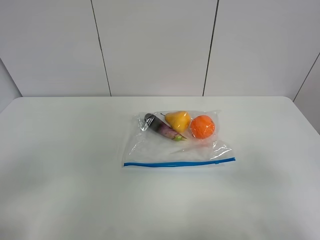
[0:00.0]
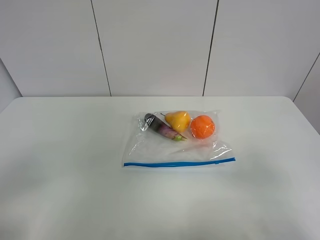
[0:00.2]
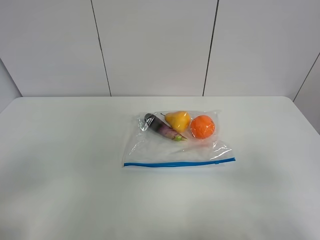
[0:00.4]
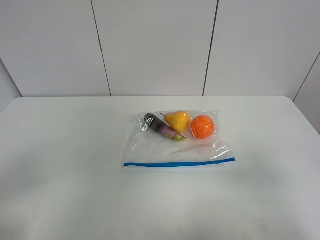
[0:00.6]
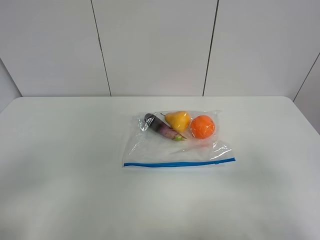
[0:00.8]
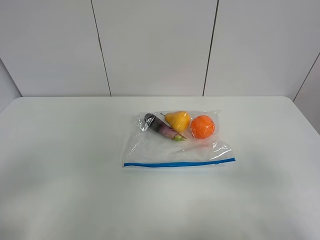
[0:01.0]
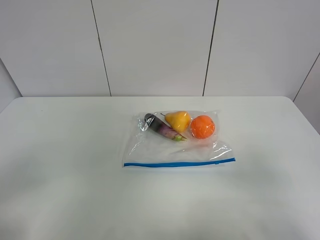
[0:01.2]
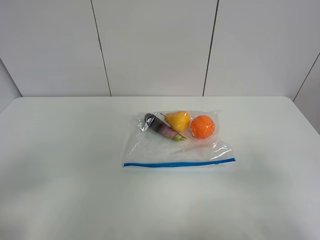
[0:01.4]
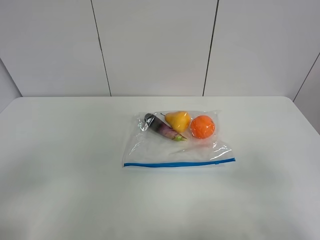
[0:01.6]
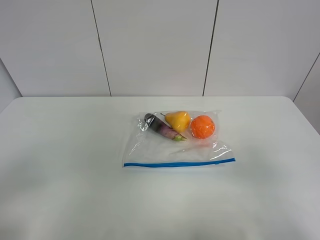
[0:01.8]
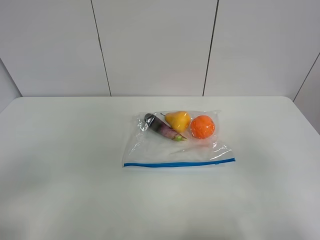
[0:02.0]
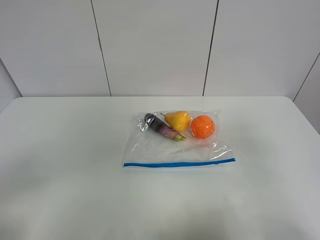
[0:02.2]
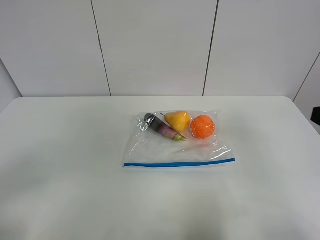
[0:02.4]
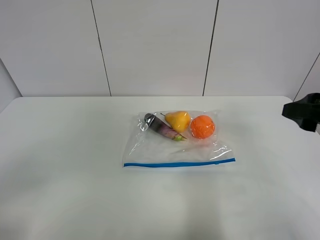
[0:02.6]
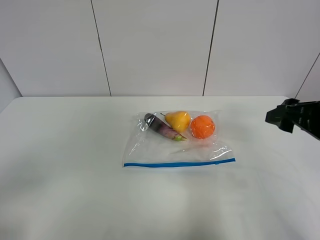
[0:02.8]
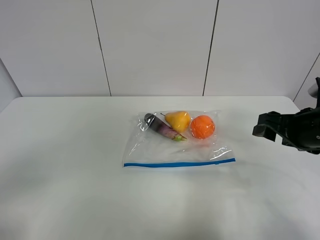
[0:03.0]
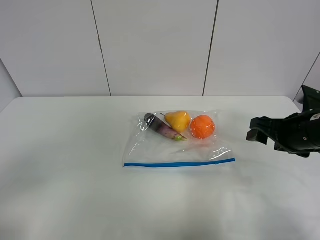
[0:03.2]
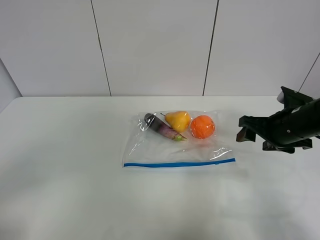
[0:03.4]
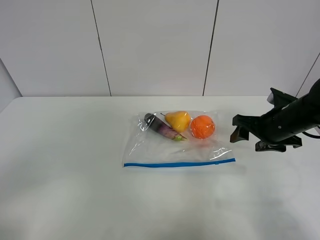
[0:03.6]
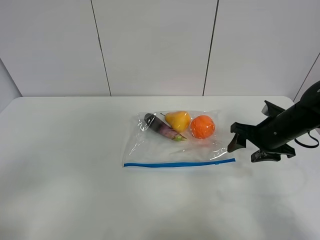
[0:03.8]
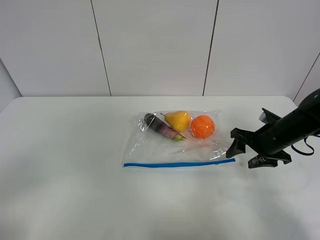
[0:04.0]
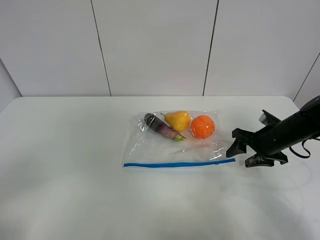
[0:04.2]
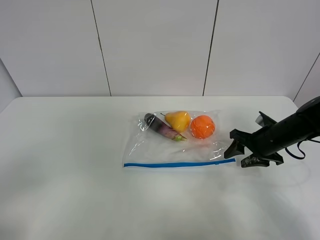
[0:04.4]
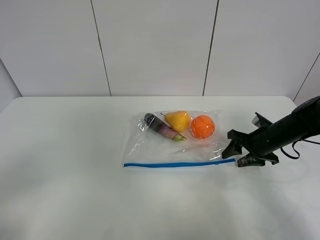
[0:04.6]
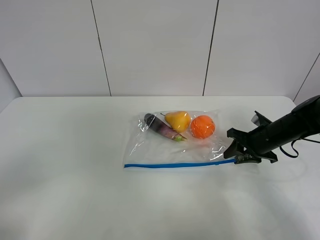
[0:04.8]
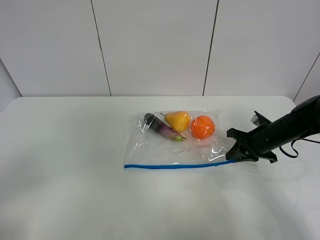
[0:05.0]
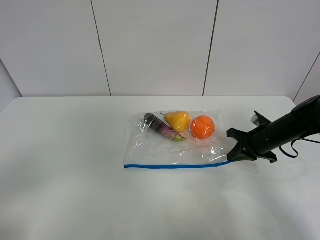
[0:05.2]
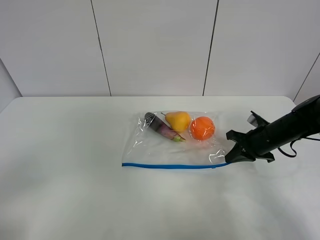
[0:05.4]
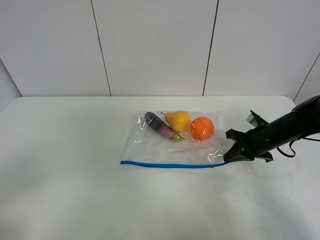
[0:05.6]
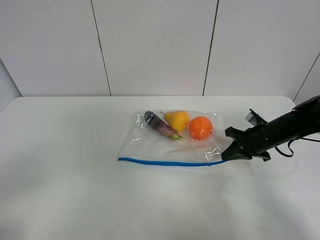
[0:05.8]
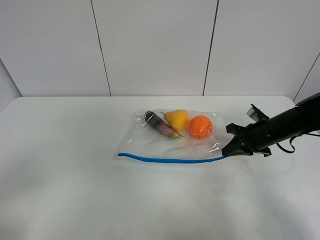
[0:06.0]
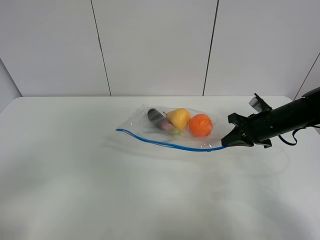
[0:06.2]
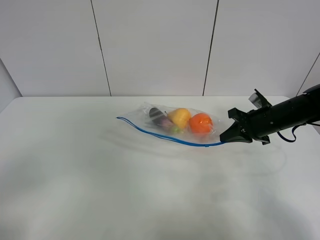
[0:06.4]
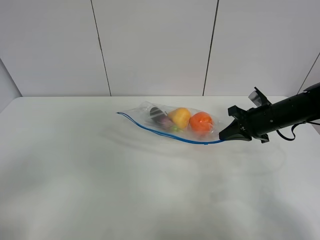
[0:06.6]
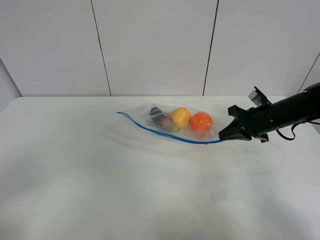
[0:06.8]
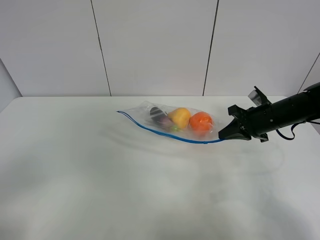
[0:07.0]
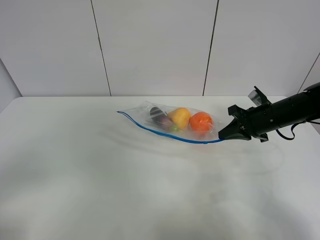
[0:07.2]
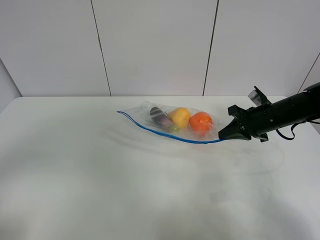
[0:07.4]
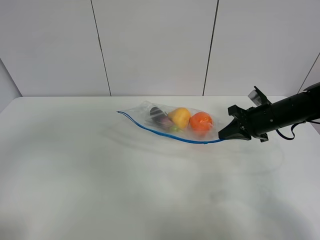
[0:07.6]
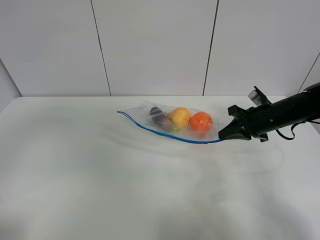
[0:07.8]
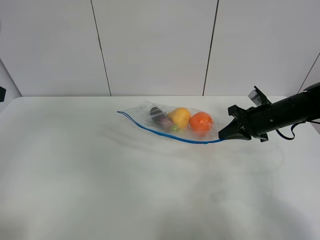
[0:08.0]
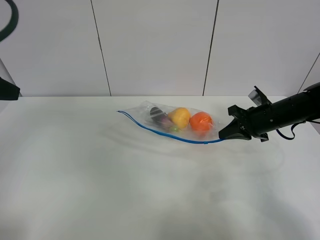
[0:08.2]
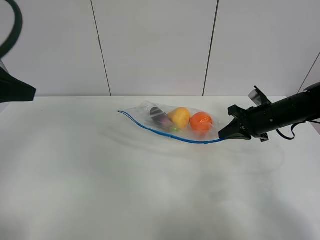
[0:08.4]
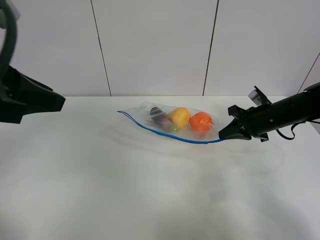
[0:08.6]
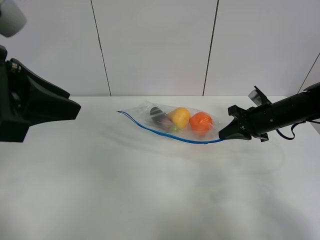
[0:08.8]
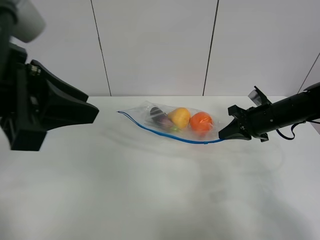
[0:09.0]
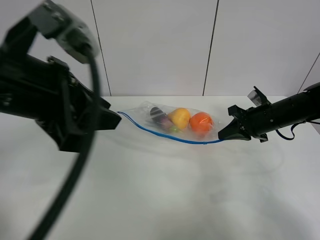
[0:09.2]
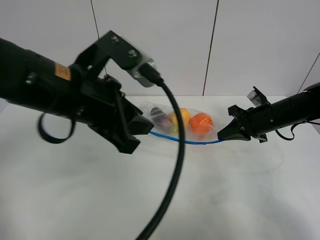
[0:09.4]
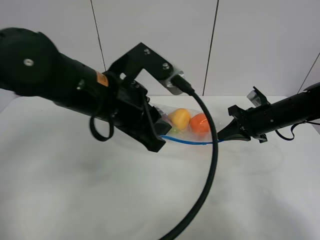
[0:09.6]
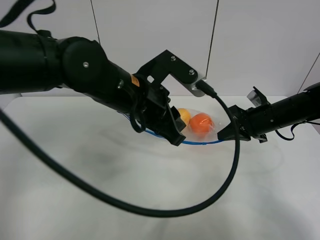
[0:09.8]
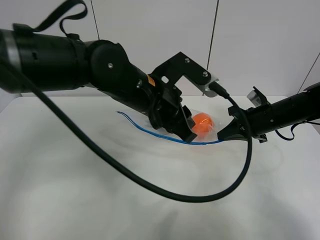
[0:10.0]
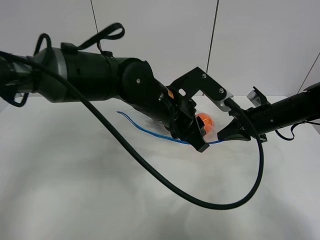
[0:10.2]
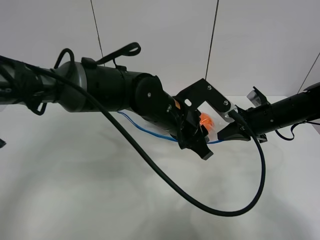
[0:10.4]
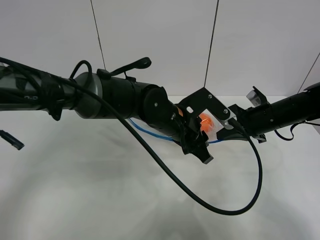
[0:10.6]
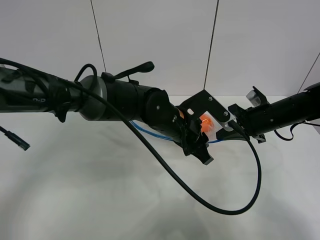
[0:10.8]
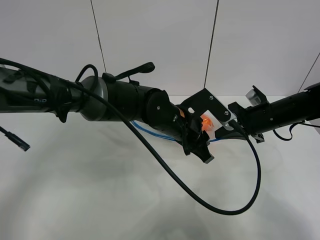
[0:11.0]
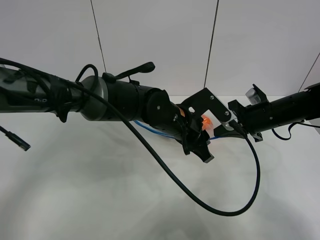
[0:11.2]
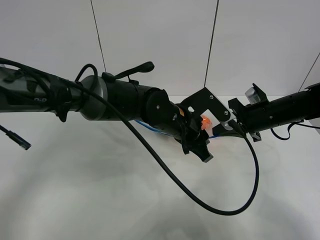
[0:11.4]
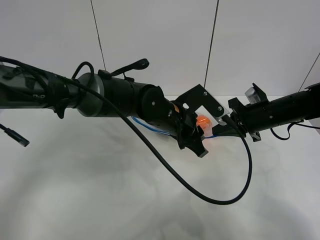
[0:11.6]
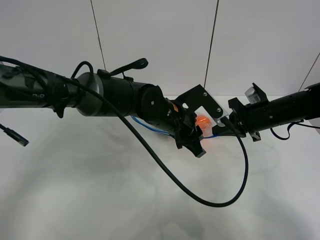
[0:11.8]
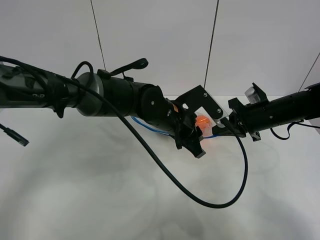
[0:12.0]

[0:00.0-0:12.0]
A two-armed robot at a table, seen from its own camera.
Step, 0:00.0 to 0:05.2: Grasp the fruit bag with right gripper.
Step, 0:05.4 to 0:06.8: Lift the fruit bag with your right gripper.
0:00.0 to 0:01.6: Neither gripper changes place.
0:01.6 to 0:03.0: The right gripper travels forward by roughly 25 cm.
0:03.0 to 0:04.4: The right gripper moves downward and forward, roughly 15 cm.
0:04.4 to 0:06.0: The right gripper closes its fingers.
0:06.0 to 0:07.6: The left gripper heads forward and upward, covering about 10 cm.
0:07.6 to 0:09.0: The left gripper travels to the right and forward by some 15 cm.
0:09.0 to 0:10.4: The left gripper moves to the right, downward and forward, about 30 cm.
0:10.4 to 0:12.0: The grippers make only small movements.

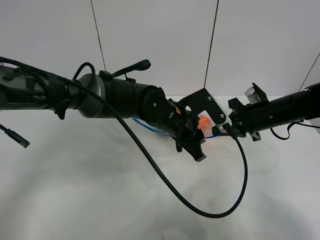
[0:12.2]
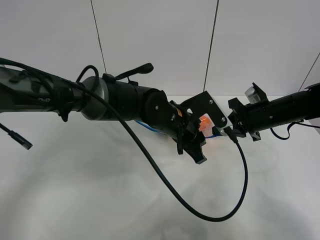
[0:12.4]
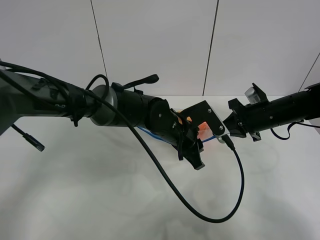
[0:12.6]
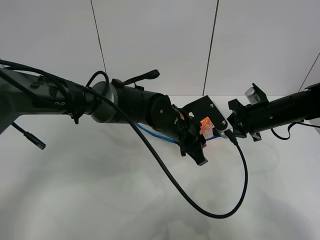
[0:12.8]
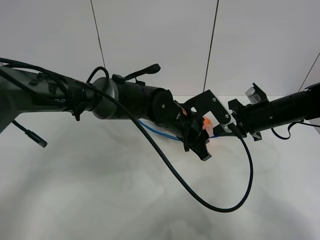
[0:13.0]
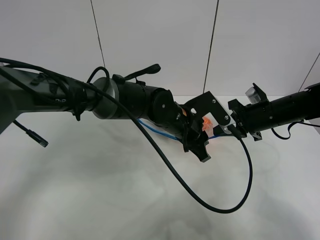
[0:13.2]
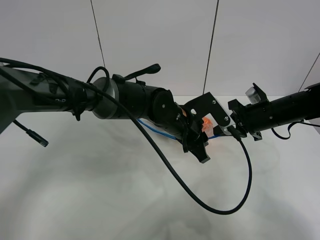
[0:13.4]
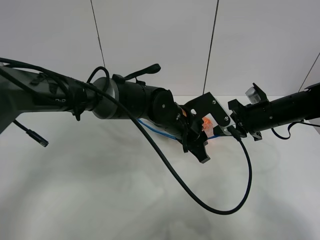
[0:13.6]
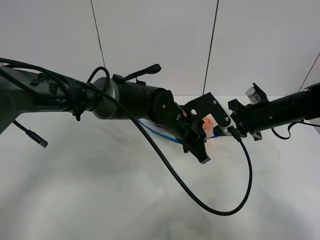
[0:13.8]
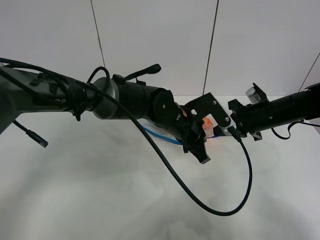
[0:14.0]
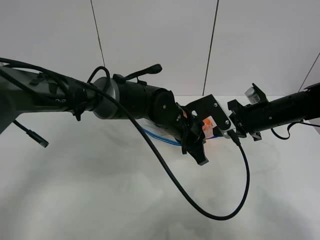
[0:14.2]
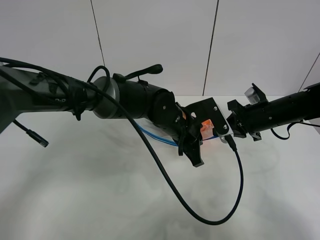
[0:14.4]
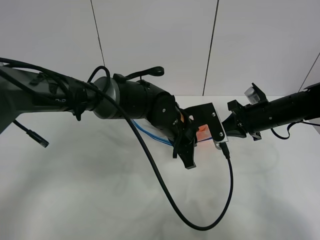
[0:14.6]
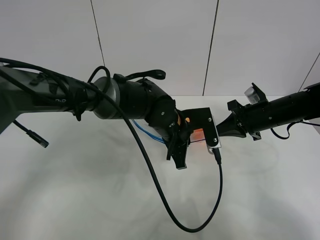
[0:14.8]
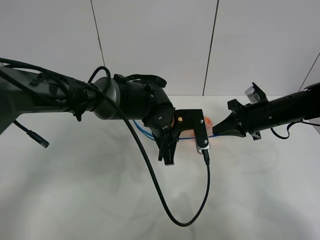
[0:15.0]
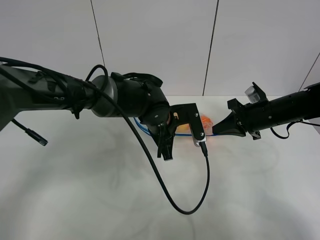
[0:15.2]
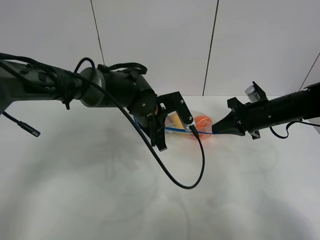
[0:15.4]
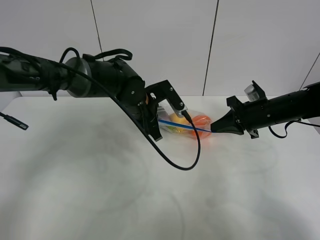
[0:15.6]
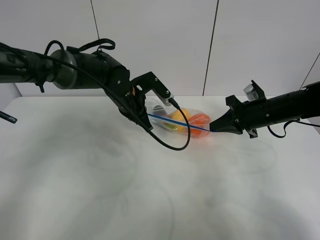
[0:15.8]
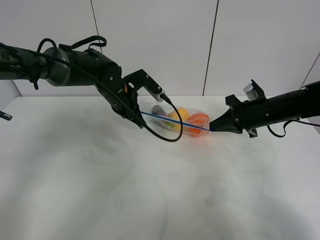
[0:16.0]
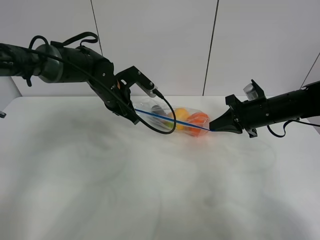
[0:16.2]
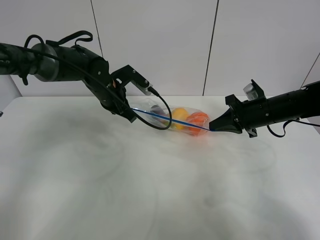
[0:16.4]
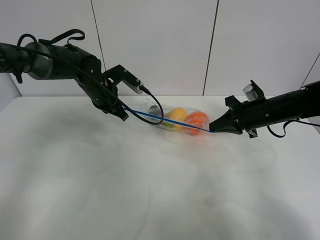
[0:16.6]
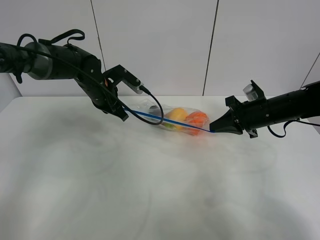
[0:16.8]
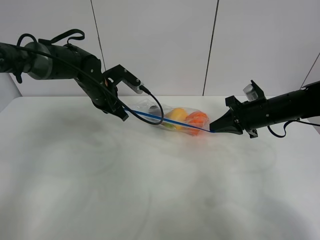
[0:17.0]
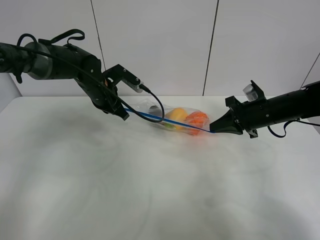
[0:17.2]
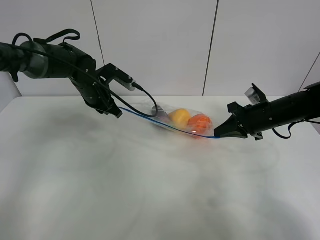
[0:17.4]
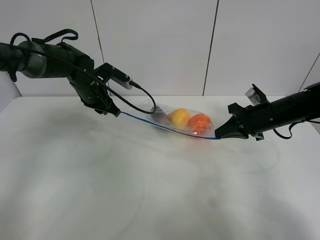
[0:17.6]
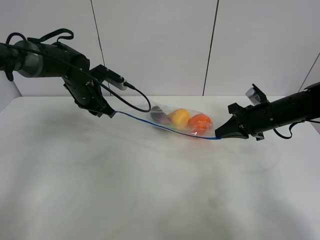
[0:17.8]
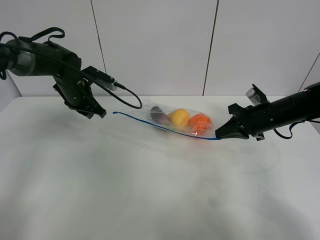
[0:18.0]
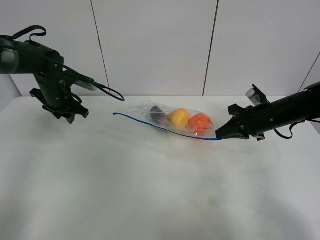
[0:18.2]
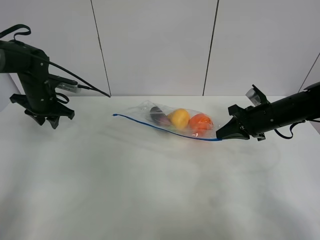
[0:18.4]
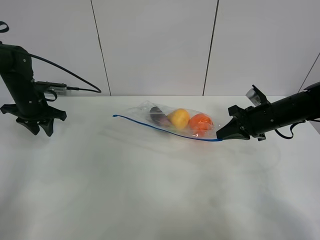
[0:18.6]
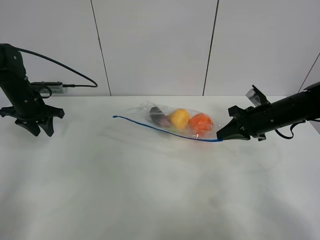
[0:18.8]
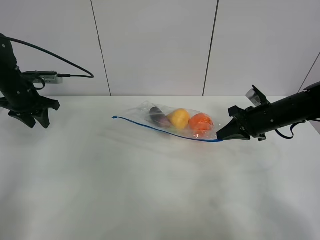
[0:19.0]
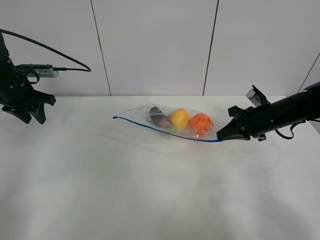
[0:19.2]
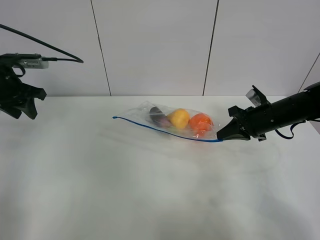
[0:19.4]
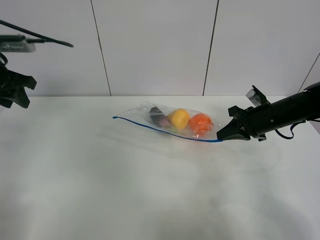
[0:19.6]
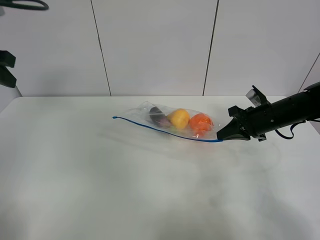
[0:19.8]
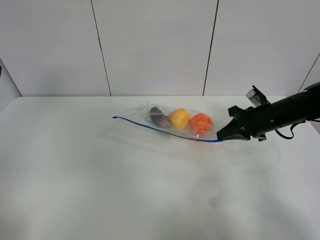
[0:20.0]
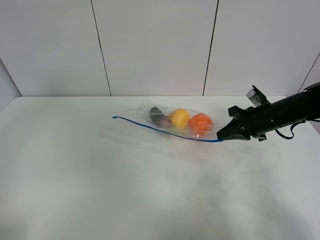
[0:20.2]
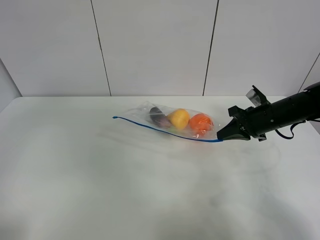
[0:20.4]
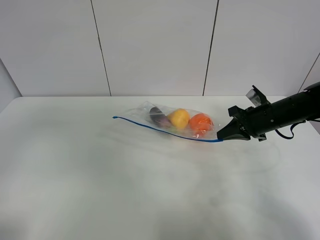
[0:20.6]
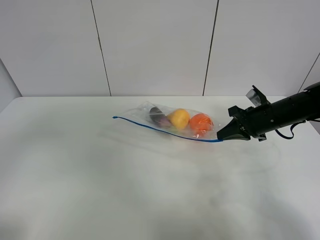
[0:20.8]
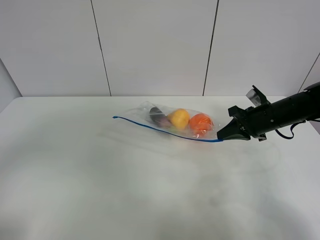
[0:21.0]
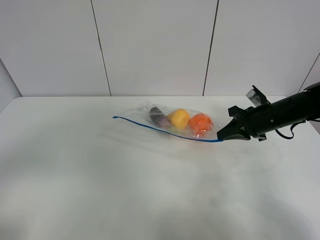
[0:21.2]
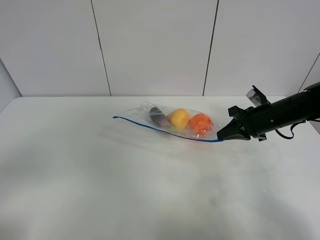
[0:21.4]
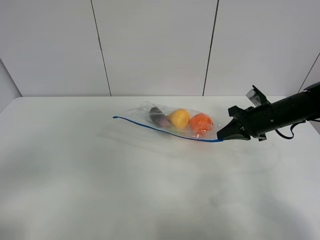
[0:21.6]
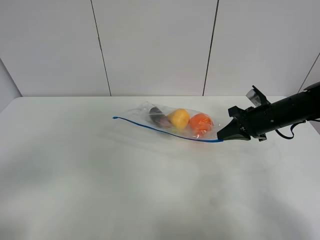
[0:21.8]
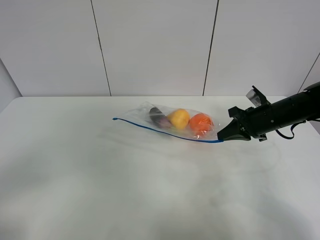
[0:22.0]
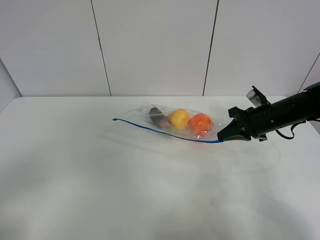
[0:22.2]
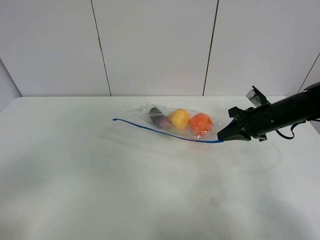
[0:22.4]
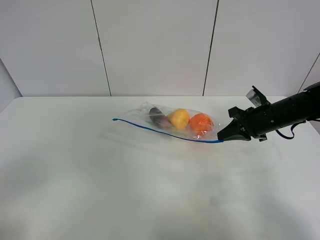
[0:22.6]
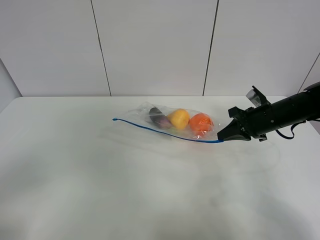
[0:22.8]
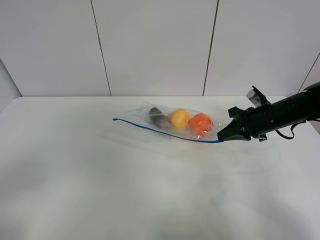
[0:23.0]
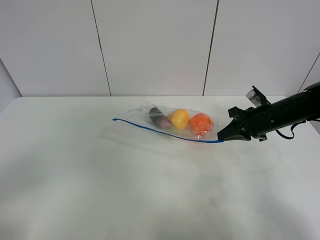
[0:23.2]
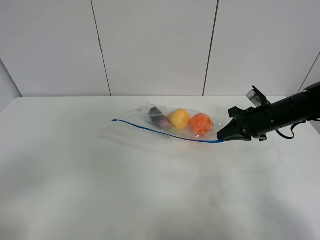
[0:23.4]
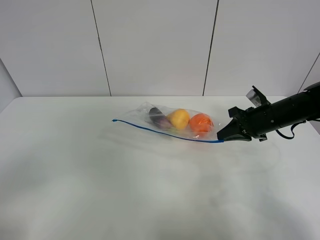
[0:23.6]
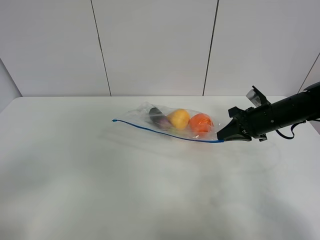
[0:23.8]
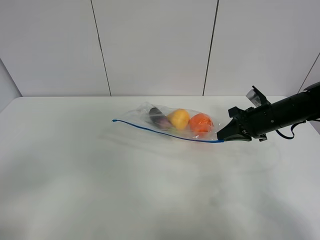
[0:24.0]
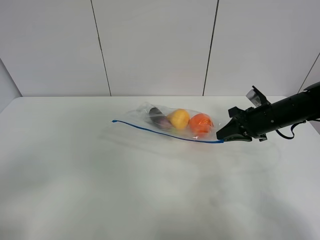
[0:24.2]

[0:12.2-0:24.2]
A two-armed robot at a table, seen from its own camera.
Step, 0:12.2 to 0:17.6: Pull the fruit bag with left gripper.
0:12.2 to 0:13.8: The left gripper closes up.
0:15.2 to 0:16.6: The left gripper travels to the left and forward by roughly 15 cm.
0:16.6 to 0:18.2: The left gripper shifts some 10 cm to the left, and opens its fingers.
0:18.2 to 0:19.8: The left gripper moves upward and backward, about 25 cm.
0:19.8 to 0:21.2: The left gripper is displaced backward by roughly 25 cm.
0:21.2 to 0:22.6: The left gripper moves approximately 5 cm.
